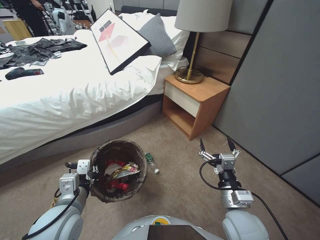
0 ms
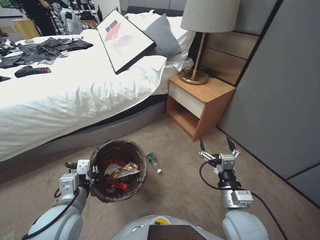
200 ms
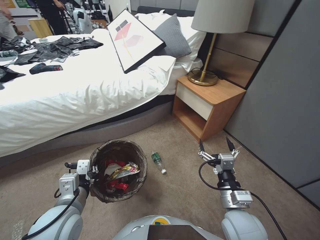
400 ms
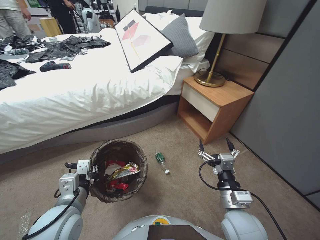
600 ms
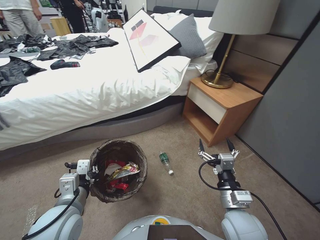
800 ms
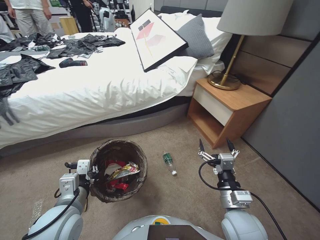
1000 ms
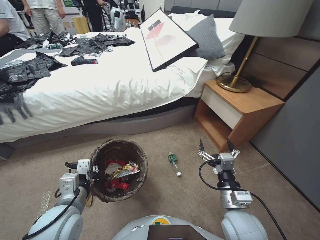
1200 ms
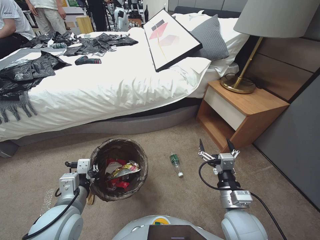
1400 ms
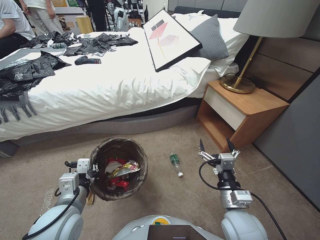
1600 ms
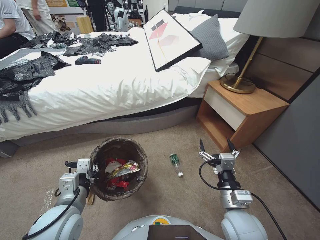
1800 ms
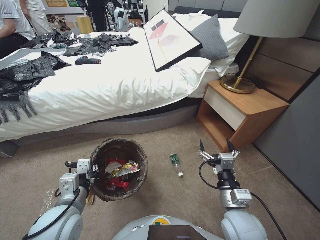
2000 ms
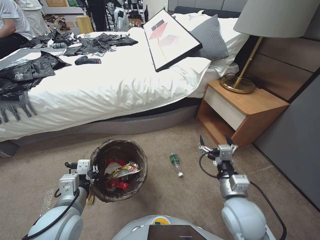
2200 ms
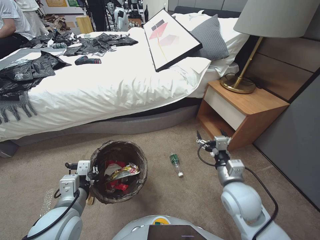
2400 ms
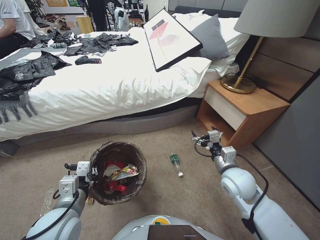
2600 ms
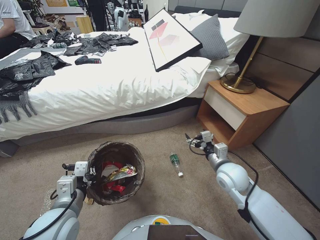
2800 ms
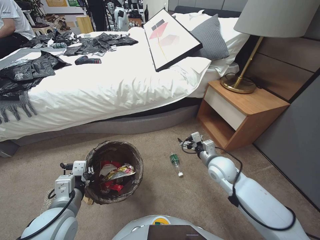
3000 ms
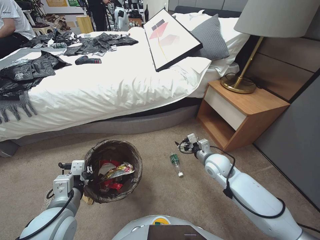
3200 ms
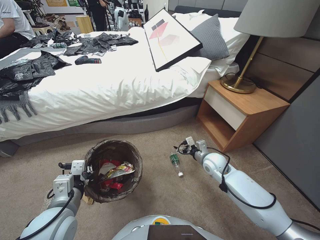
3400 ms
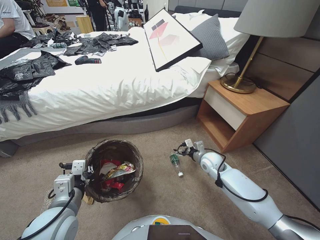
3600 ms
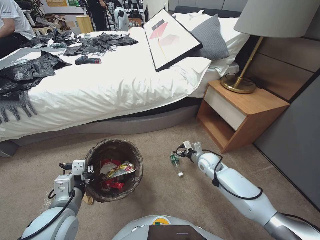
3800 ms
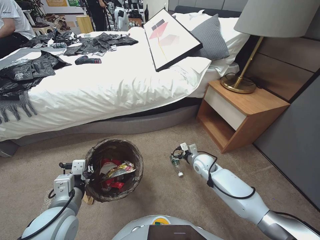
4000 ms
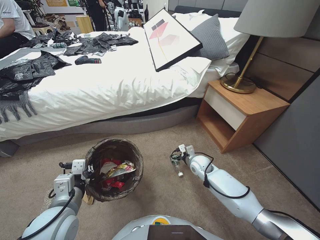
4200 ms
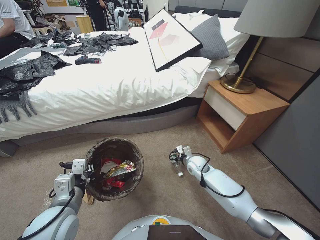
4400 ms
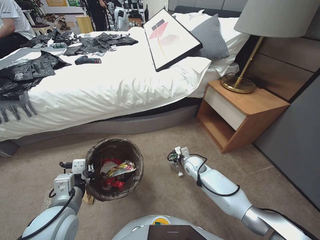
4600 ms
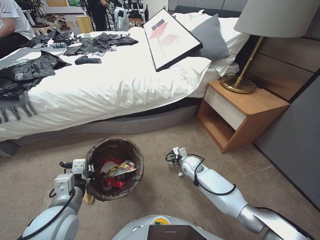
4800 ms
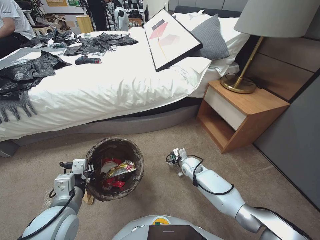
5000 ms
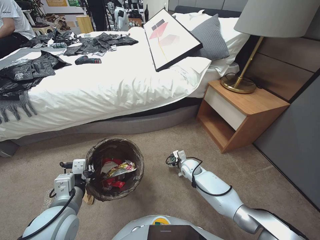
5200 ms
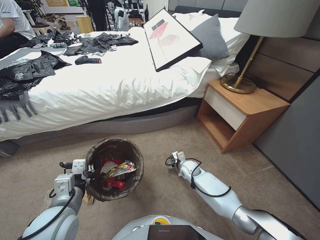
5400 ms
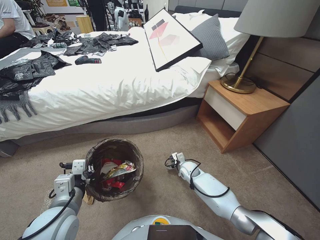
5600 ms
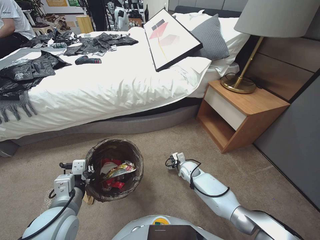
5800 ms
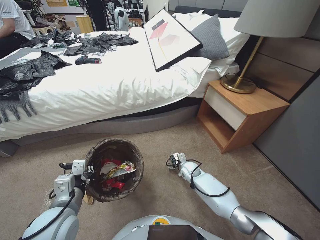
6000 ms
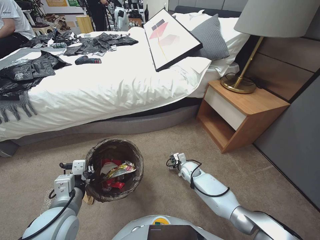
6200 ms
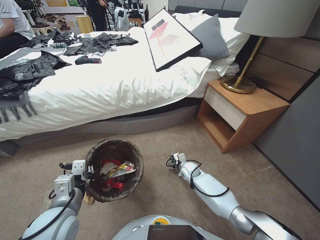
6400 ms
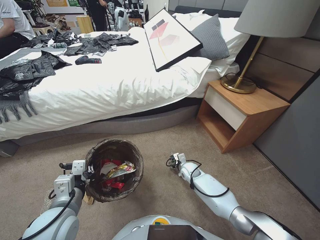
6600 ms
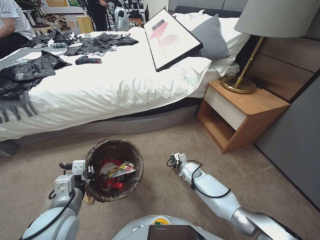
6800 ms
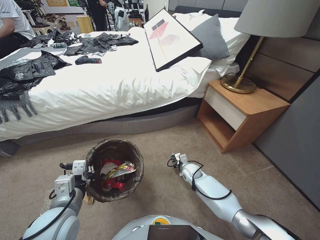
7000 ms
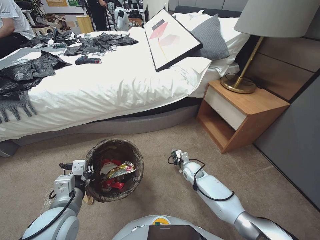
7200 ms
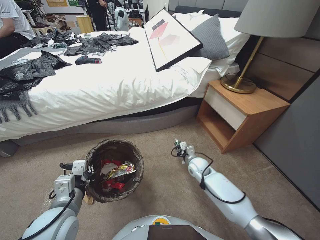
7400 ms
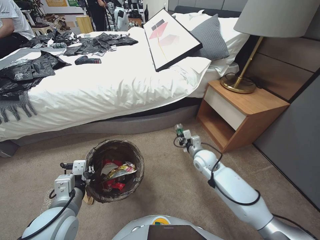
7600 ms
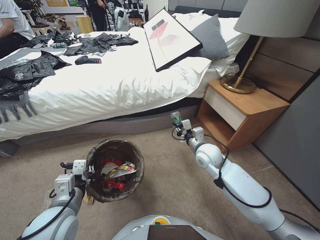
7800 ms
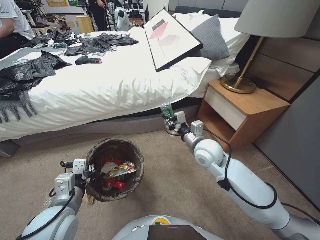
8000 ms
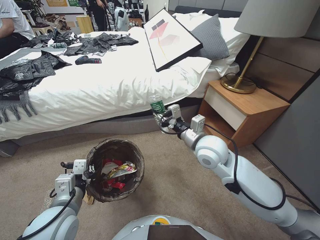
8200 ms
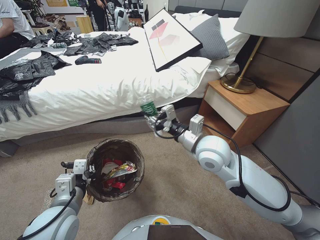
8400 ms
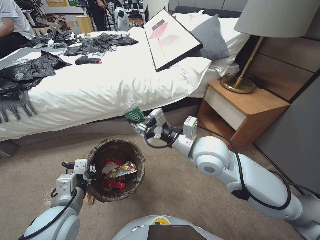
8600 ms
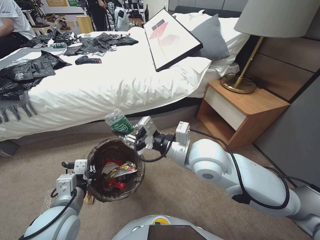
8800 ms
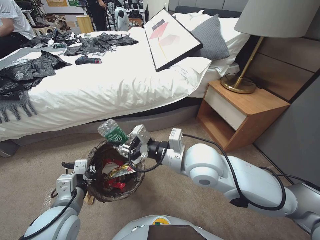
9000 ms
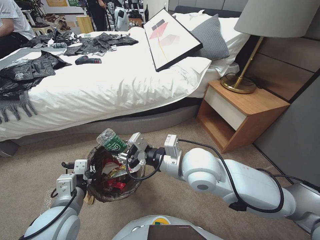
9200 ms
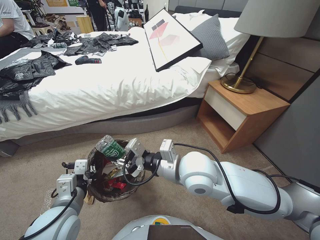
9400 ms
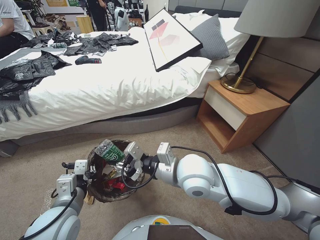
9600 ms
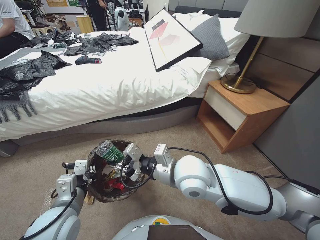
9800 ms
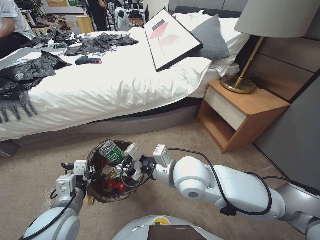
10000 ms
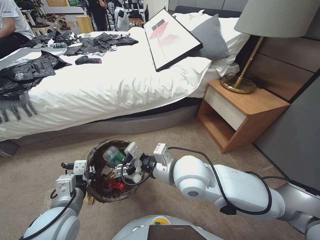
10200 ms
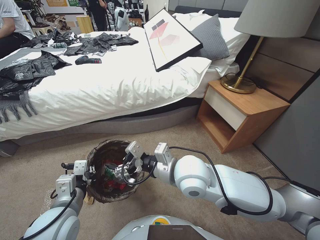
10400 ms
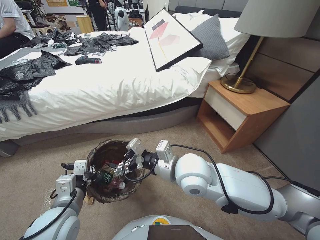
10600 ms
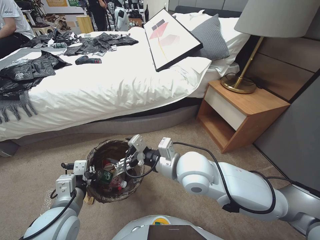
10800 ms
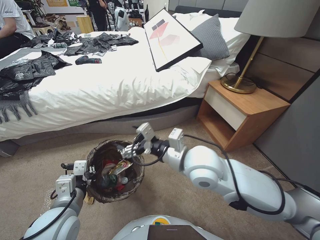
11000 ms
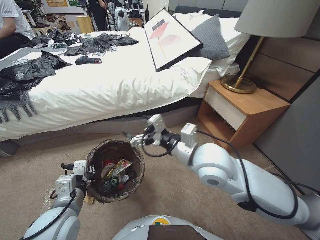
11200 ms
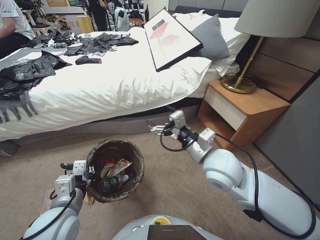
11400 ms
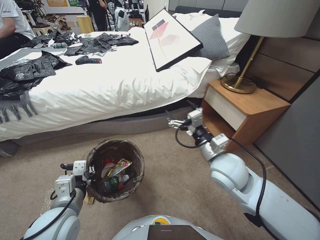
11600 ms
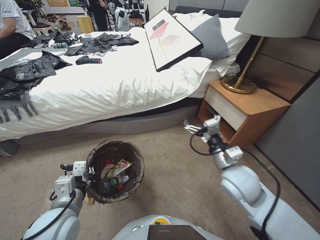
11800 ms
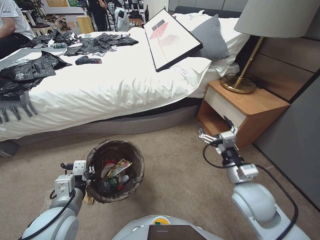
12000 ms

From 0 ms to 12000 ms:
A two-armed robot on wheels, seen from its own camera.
Task of the whole recording: Pick up the trash bin, then pick up the garbage from the floor and place it into the trash bin.
From 1600 ms to 3000 ms: The right gripper heads forward, covering about 15 cm.
From 3000 ms to 4400 ms: The right gripper moves downward and forward, some 15 cm.
From 4400 ms to 6000 ms: The right gripper heads downward, covering roughly 5 cm.
From 6000 ms to 7600 ms: The right gripper travels upward by approximately 10 cm, and closes up.
From 7600 ms to 9000 ms: The right gripper is displaced upward, backward and to the left by approximately 30 cm.
From 9000 ms to 10400 ms: The right gripper ends up about 5 cm from where it was, and opens.
From 10400 ms to 12000 ms: The right gripper travels to the right by roughly 20 cm.

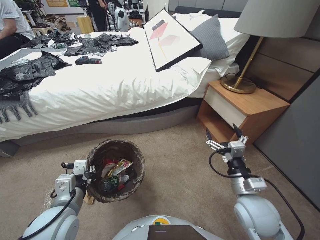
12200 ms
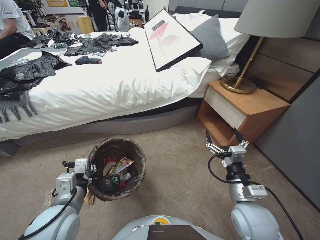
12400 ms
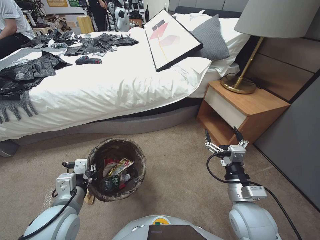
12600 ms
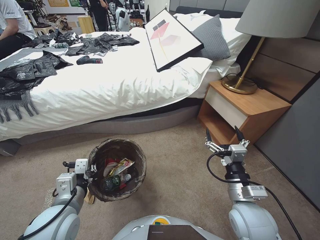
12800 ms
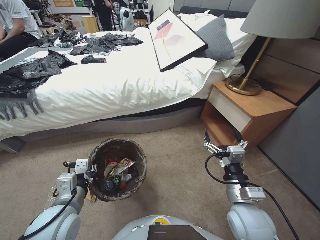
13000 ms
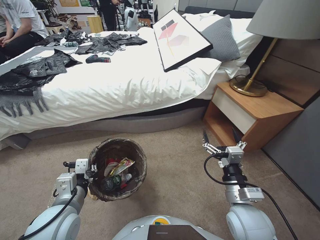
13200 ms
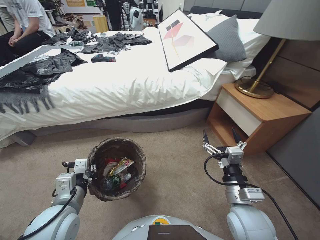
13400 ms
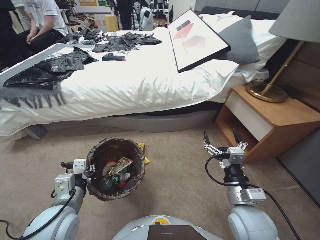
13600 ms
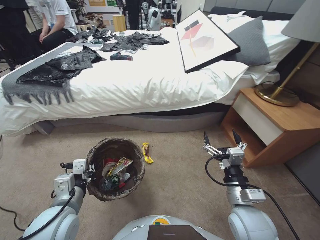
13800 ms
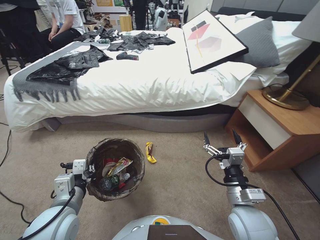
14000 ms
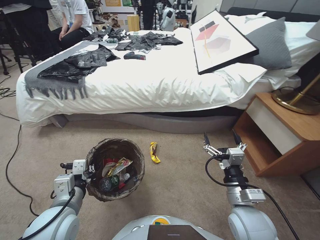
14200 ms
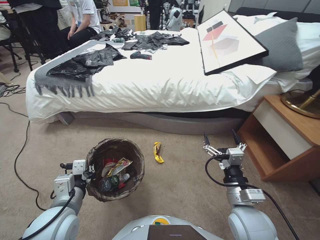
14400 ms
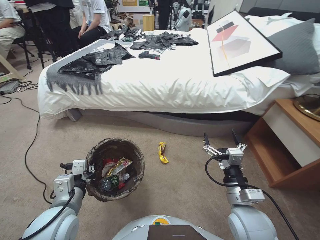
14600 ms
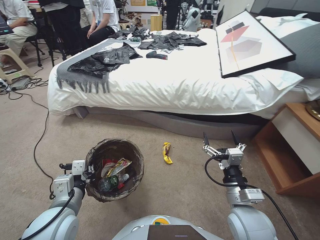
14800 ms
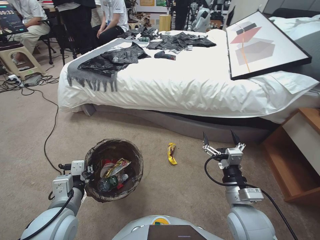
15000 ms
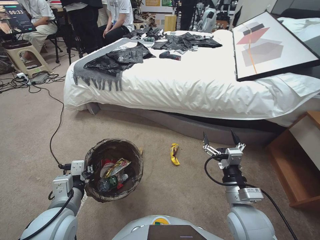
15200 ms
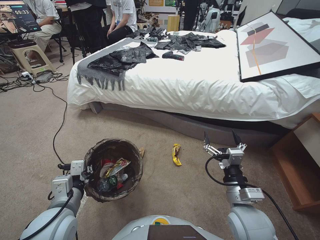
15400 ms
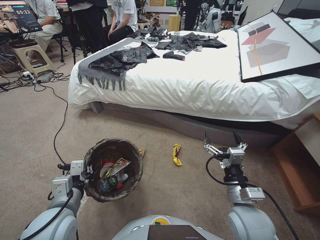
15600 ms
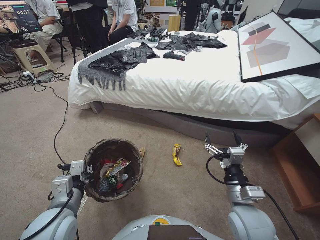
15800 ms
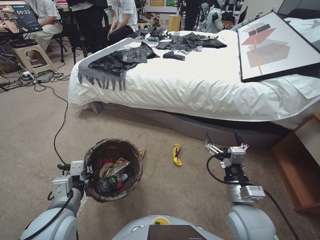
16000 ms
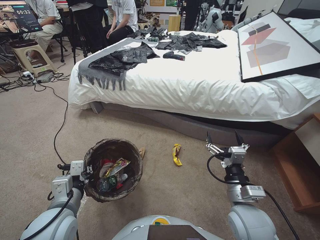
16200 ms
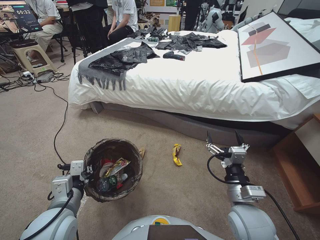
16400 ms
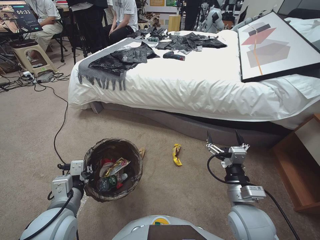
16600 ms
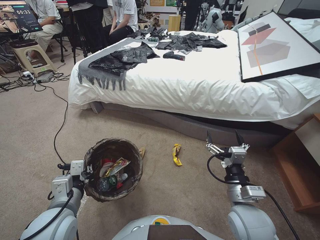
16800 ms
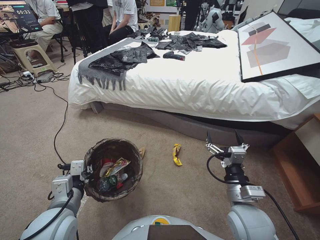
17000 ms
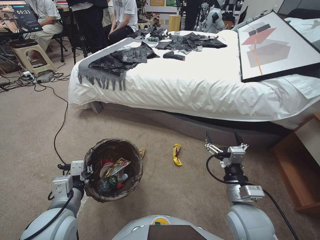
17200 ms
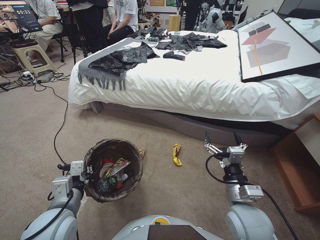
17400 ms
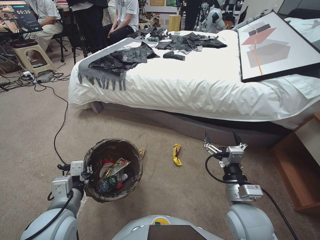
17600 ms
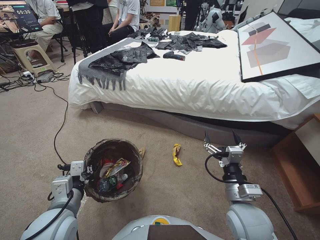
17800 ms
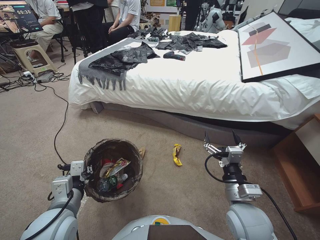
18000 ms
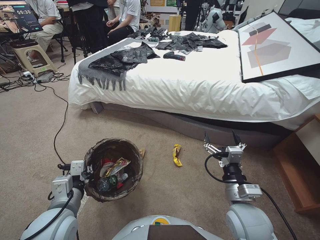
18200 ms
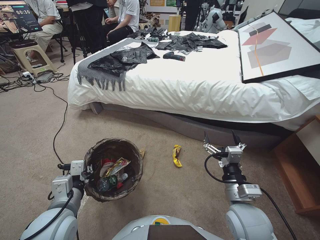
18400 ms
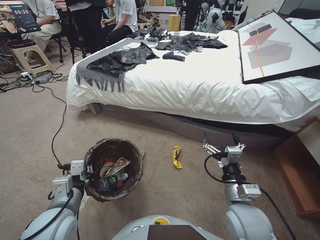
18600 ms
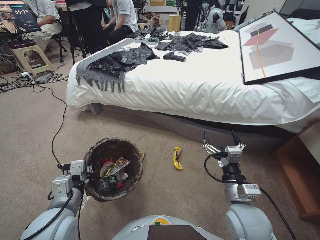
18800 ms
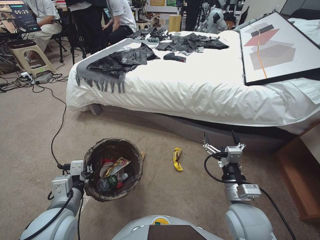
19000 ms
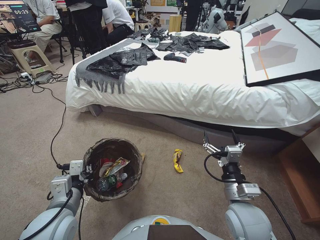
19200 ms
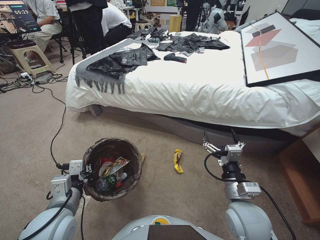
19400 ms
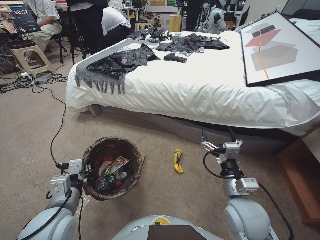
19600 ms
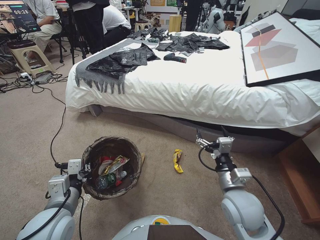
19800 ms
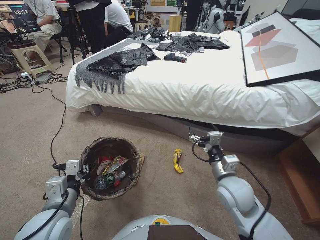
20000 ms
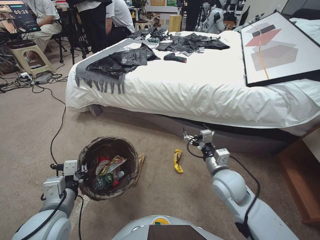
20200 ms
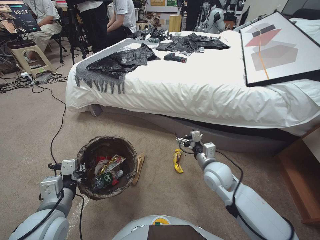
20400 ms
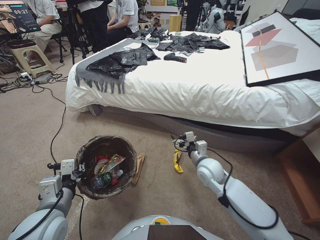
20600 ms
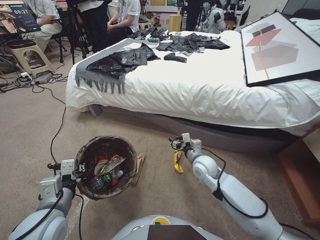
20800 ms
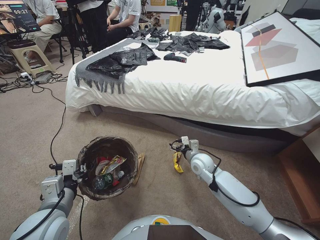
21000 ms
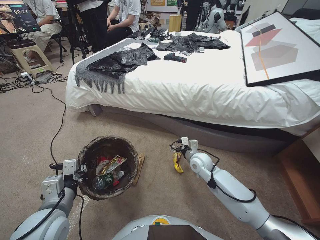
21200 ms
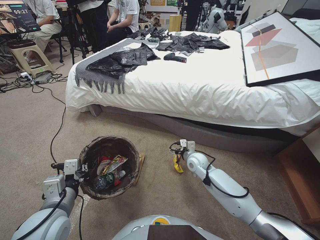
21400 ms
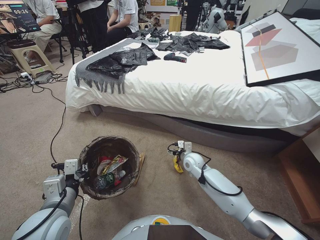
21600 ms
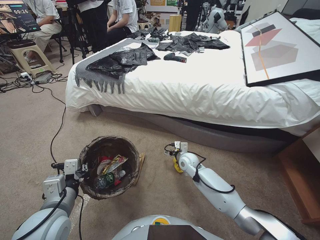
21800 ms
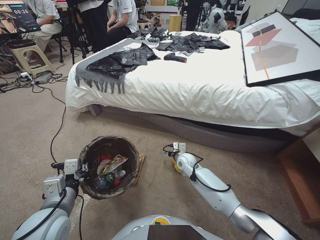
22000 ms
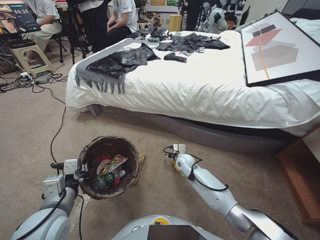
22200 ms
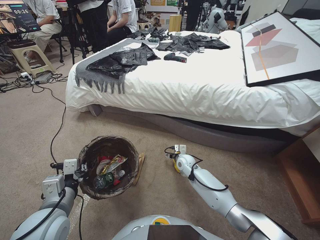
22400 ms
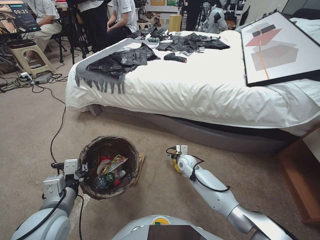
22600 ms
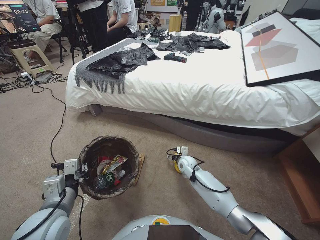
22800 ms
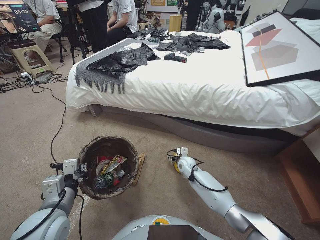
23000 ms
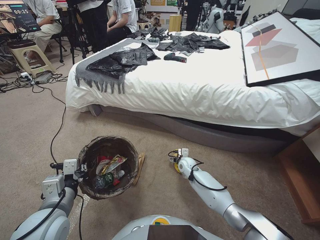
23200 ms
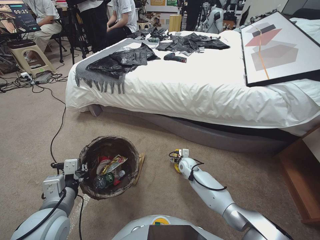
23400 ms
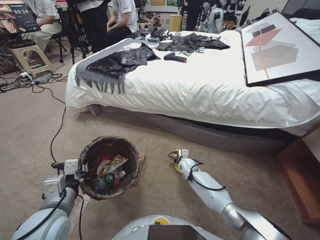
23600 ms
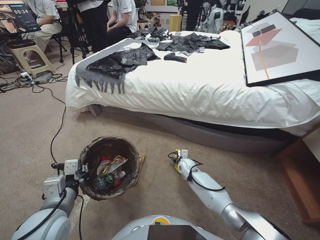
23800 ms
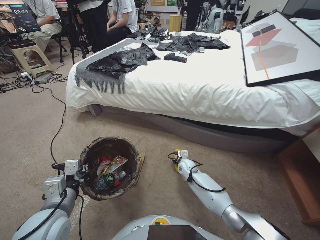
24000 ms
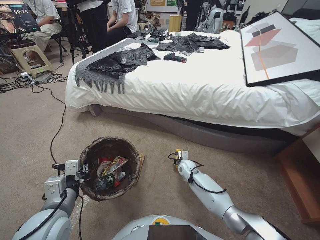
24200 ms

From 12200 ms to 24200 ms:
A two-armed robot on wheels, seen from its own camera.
Task of the whole recording: Pick up the trash bin, then pick up the garbage from the floor and place it into the trash bin.
From 16600 ms to 18200 ms: Neither gripper changes place.
From 19800 ms to 21200 ms: The right gripper heads forward and downward, covering about 20 cm.
From 21200 ms to 22600 ms: The right gripper shifts approximately 10 cm downward.
From 22600 ms to 24200 ms: The right gripper goes some 5 cm downward, and closes up.
